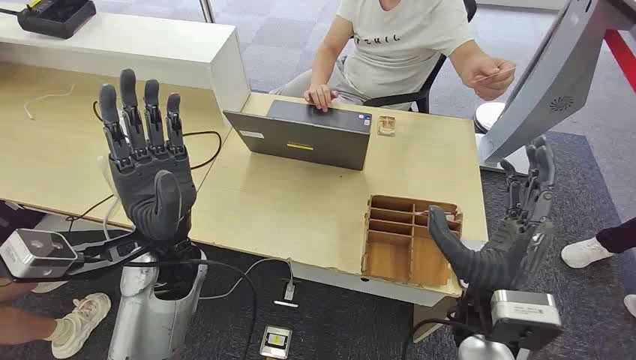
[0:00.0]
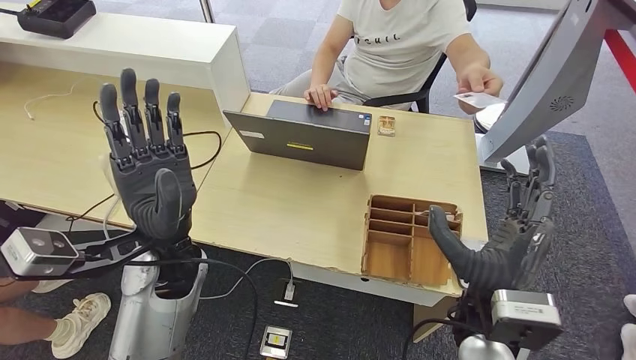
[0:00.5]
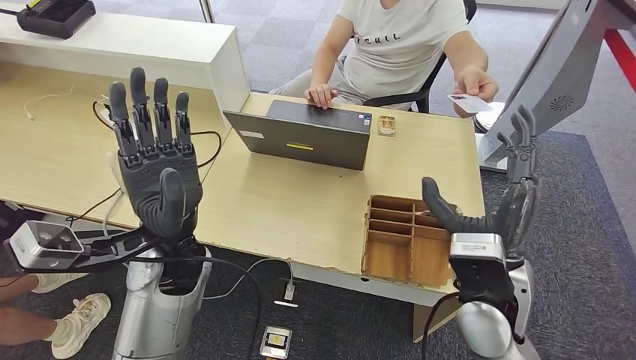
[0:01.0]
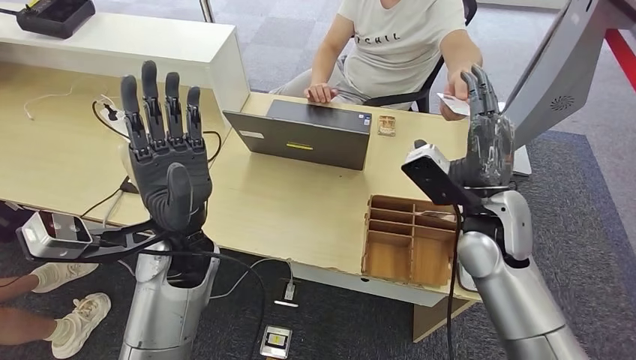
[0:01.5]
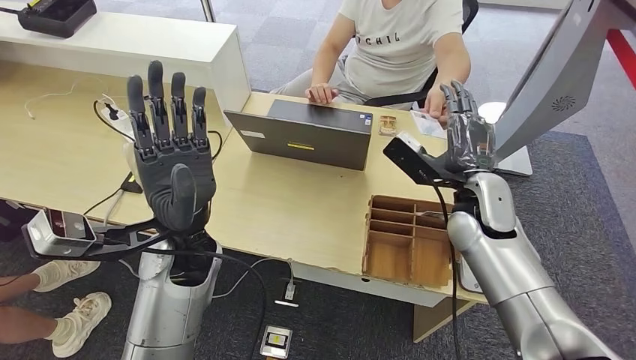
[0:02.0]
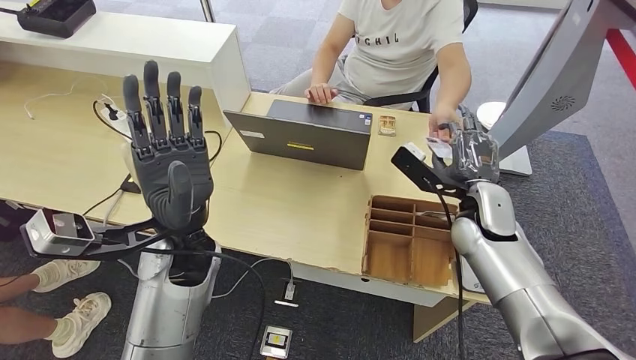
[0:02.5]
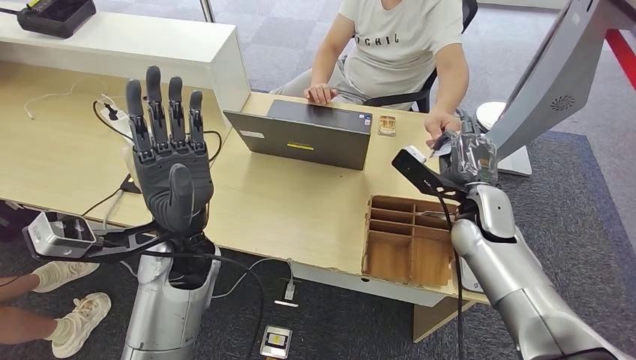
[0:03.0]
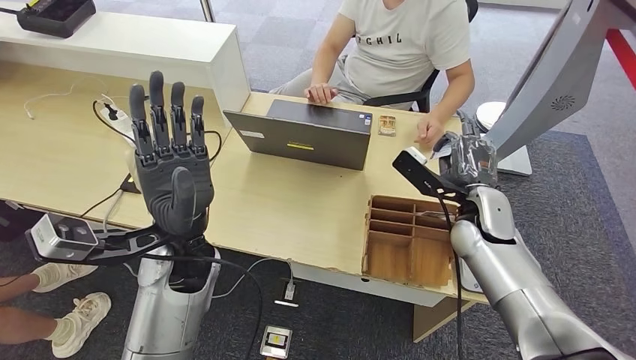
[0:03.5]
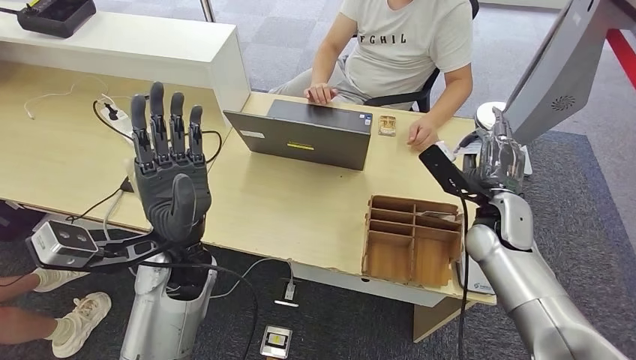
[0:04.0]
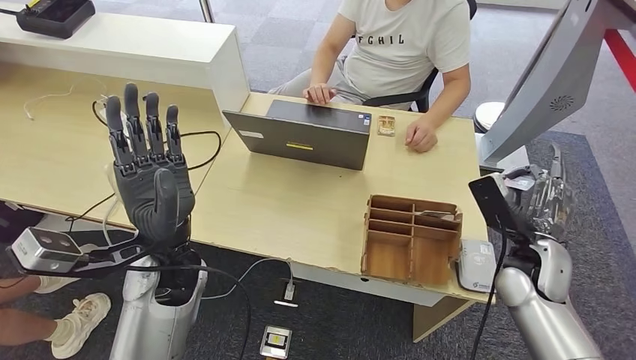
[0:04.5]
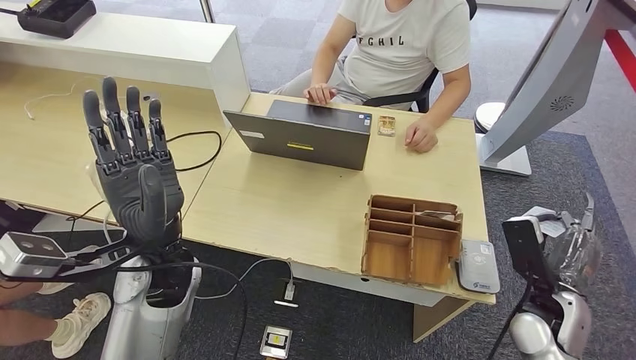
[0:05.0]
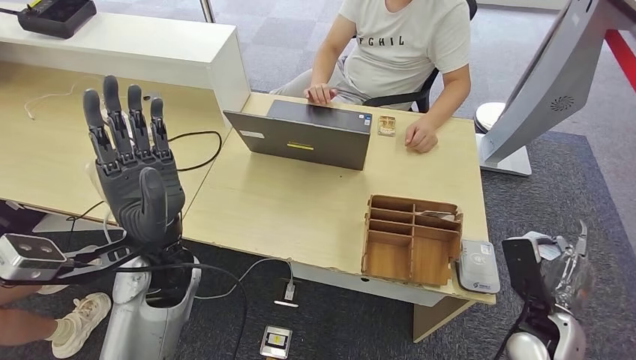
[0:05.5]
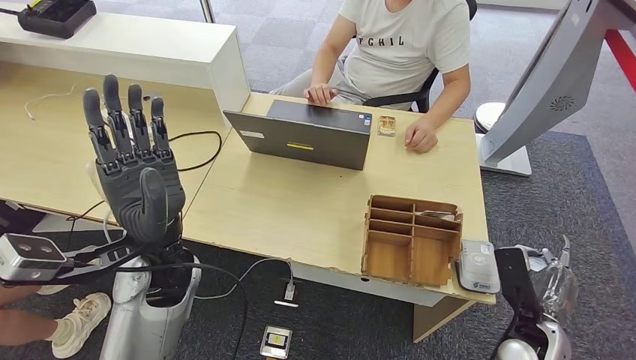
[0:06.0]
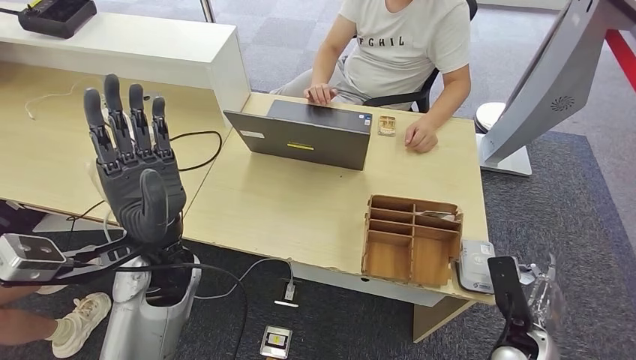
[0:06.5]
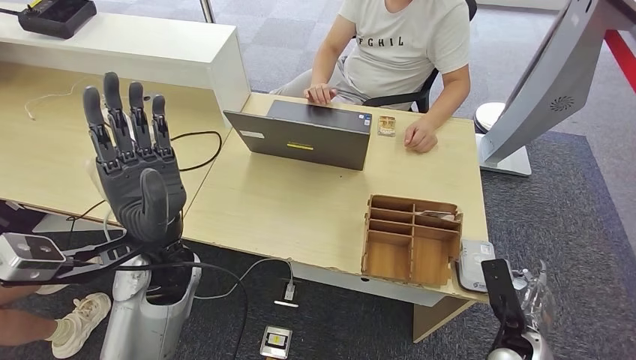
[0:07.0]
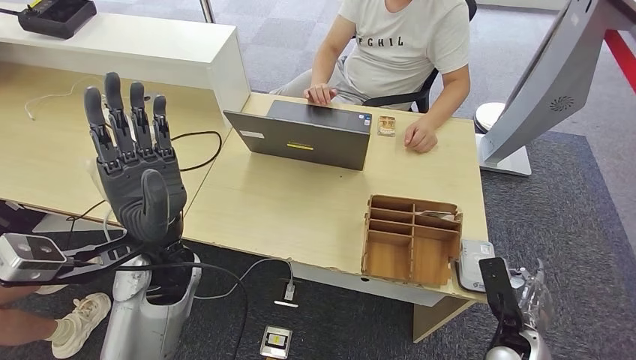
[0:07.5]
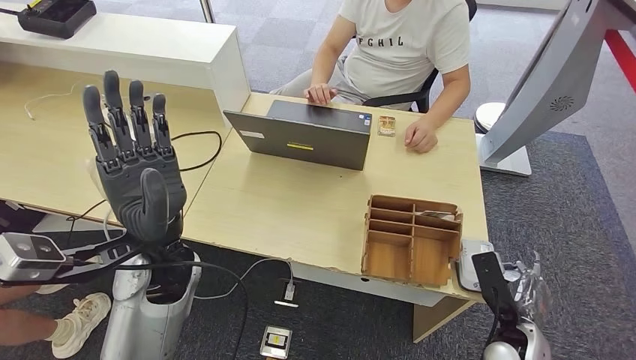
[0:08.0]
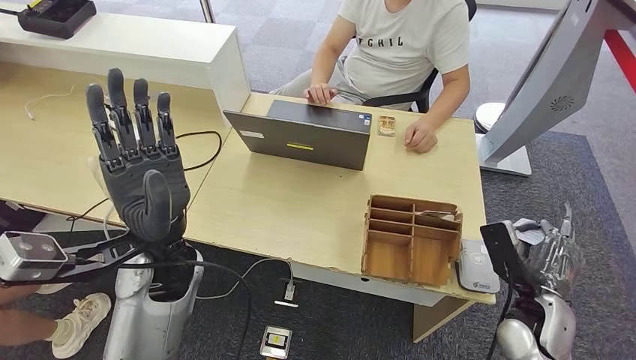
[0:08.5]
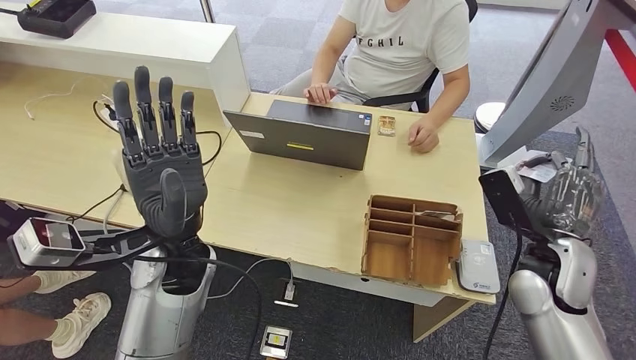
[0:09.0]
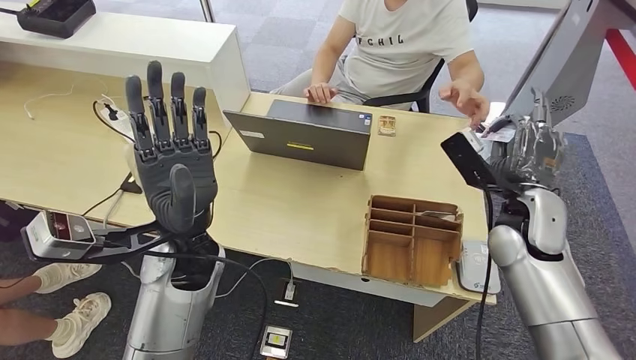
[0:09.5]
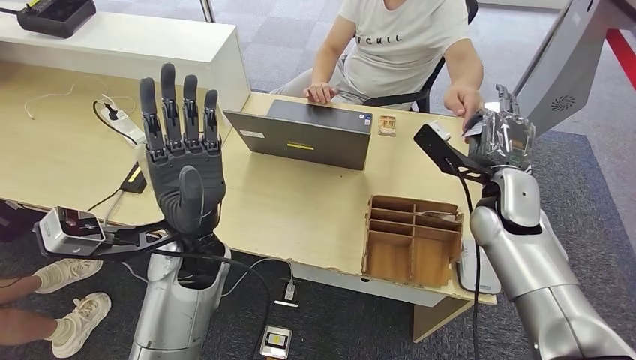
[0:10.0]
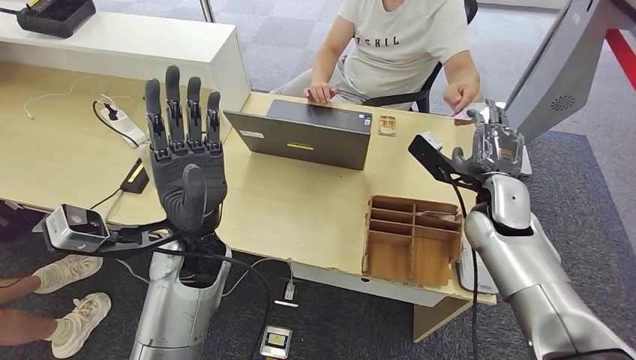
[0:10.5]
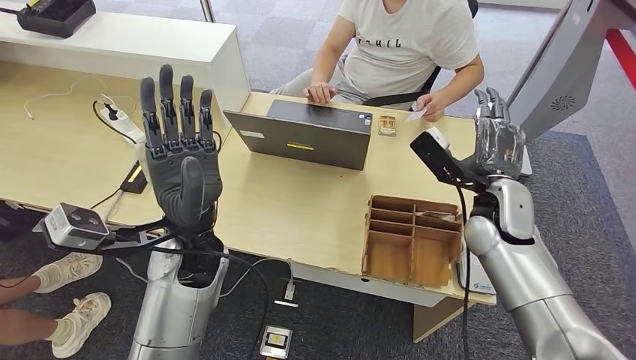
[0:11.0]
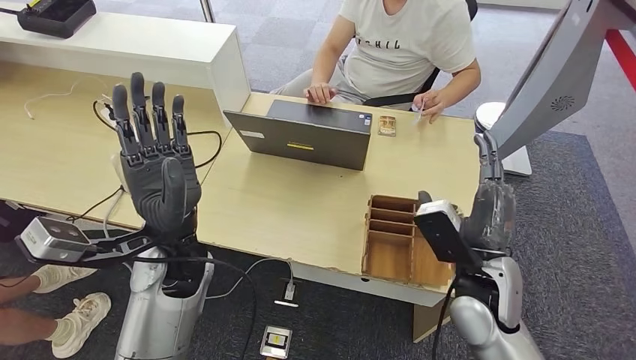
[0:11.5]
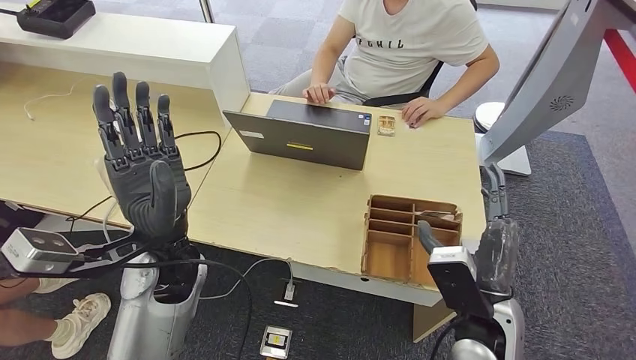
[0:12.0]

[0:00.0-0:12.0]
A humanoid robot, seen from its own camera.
Step, 0:00.0 to 0:03.5: Take the ID card from the person's hand.
Step, 0:04.0 to 0:08.5: Place the ID card on the card reader.
Step, 0:09.0 to 0:11.0: Hand the ID card to the person.
0:02.0 to 0:04.0: The right hand heads to the right, covering roughly 5 cm.
0:04.0 to 0:06.0: The right hand is displaced backward, downward and to the right by approximately 20 cm.
0:06.0 to 0:08.0: The hands stay close to where they were, moving slightly.

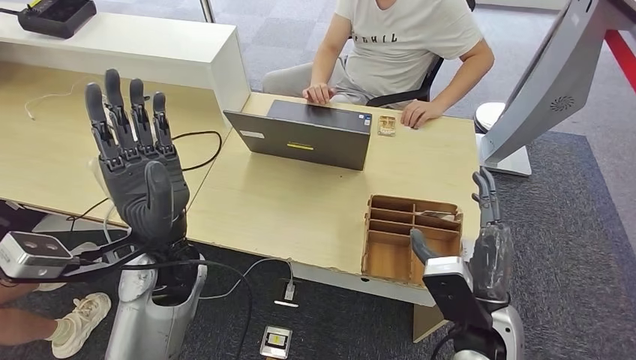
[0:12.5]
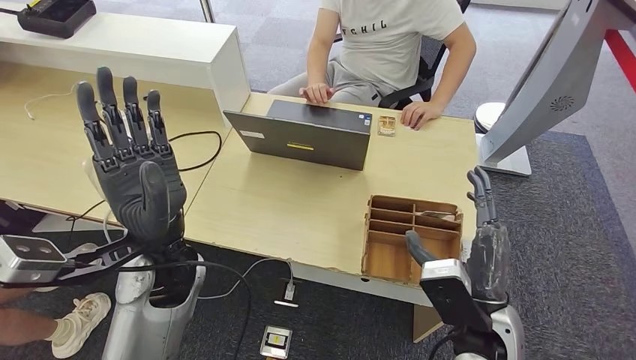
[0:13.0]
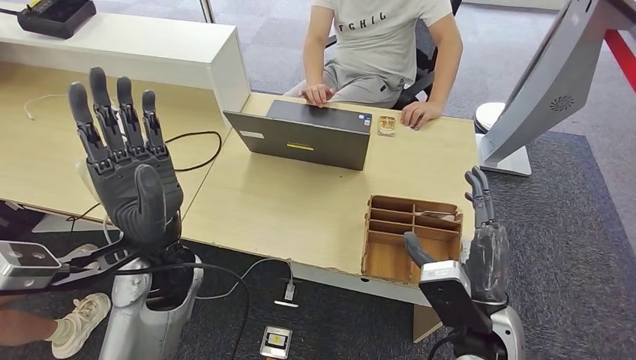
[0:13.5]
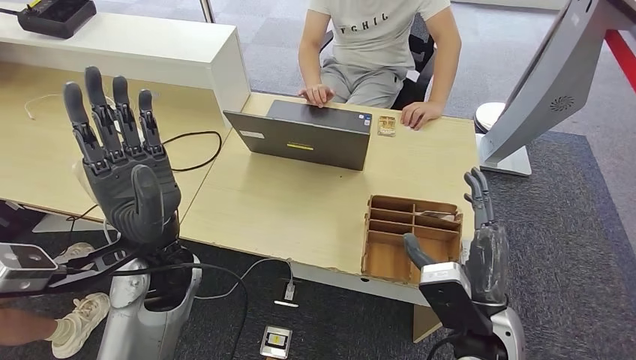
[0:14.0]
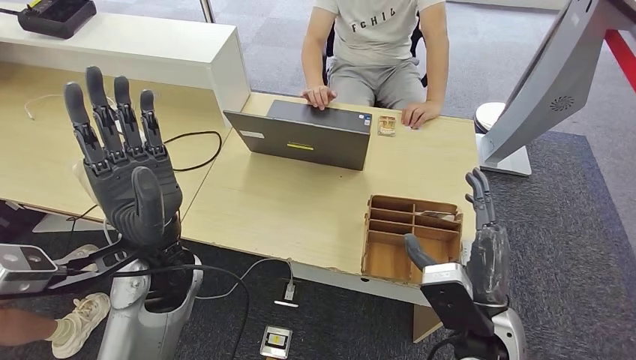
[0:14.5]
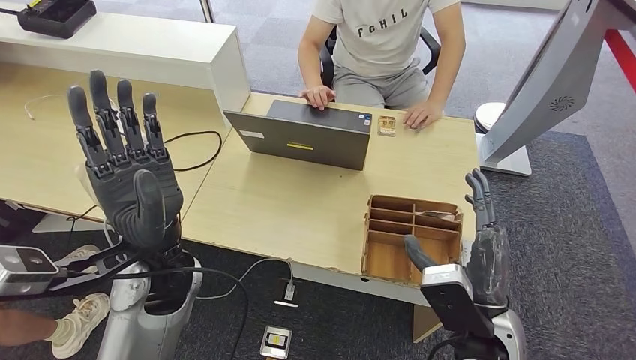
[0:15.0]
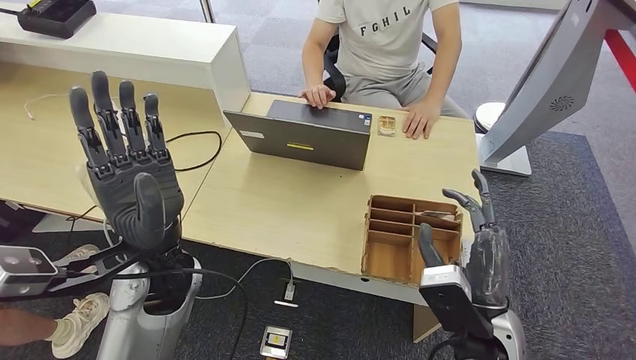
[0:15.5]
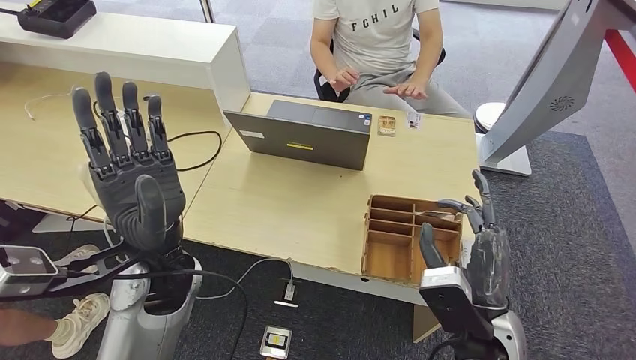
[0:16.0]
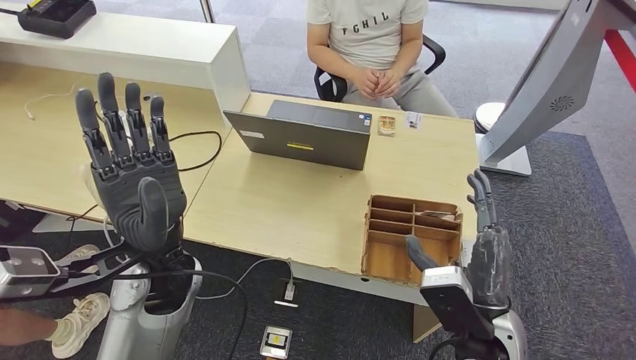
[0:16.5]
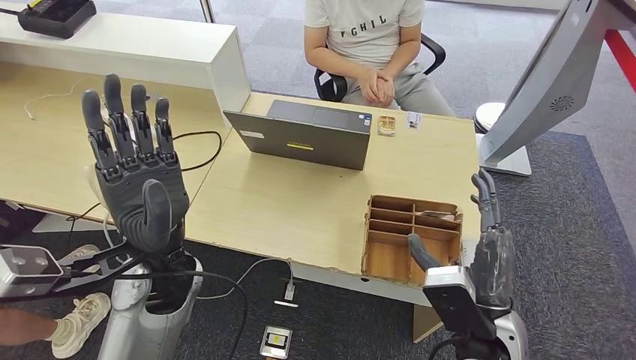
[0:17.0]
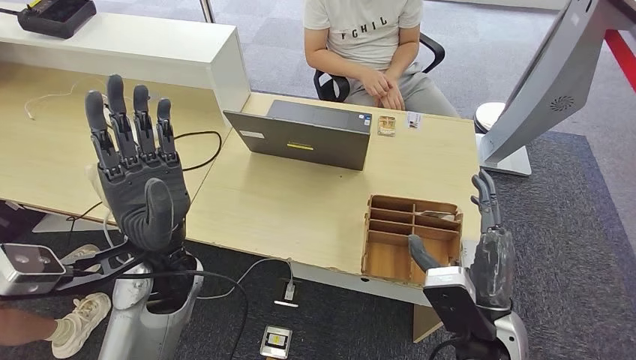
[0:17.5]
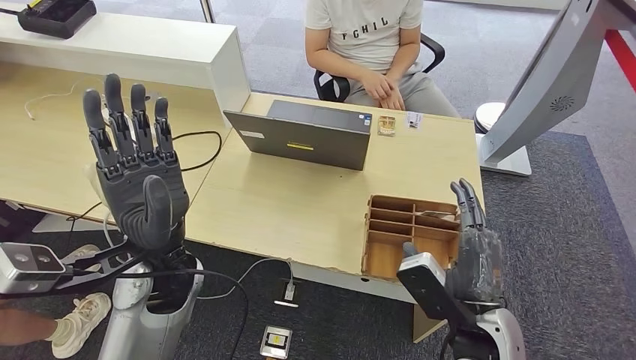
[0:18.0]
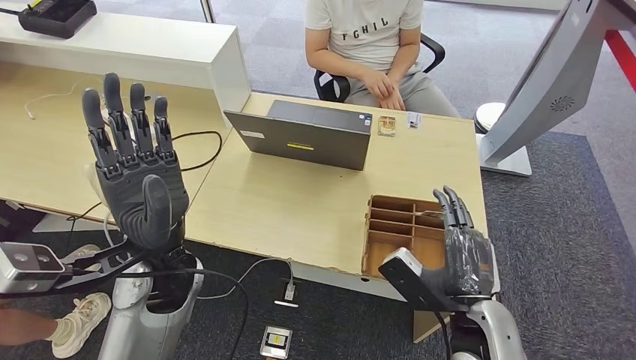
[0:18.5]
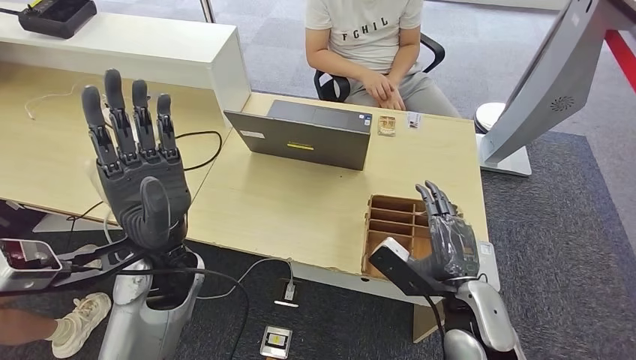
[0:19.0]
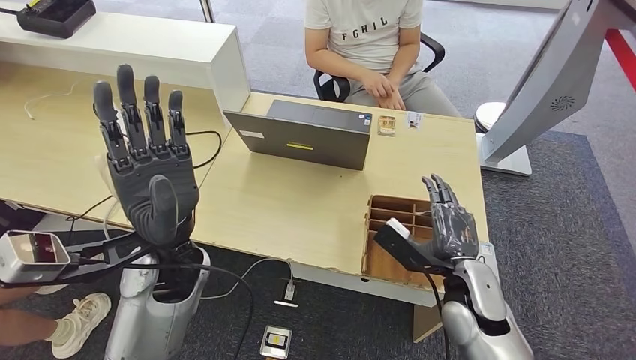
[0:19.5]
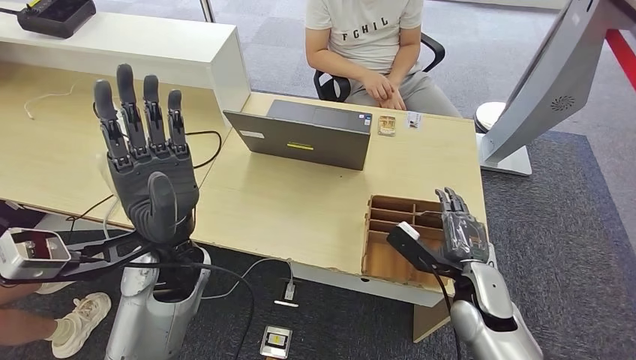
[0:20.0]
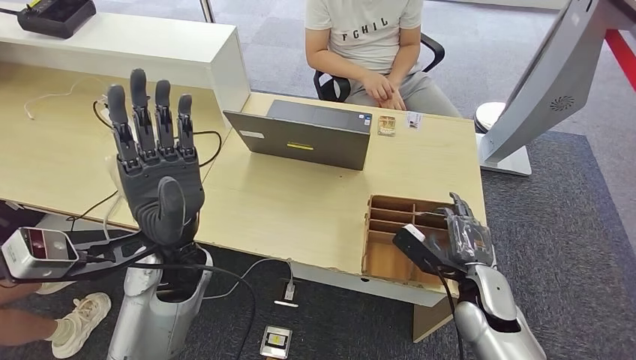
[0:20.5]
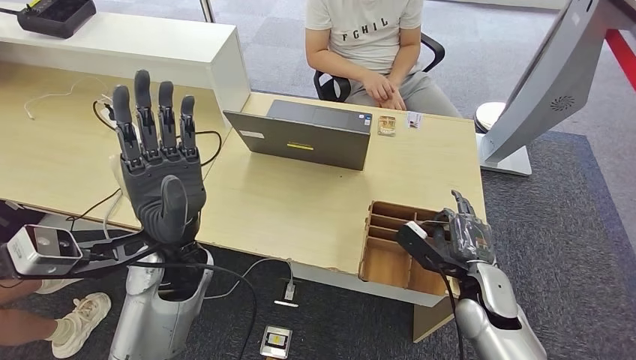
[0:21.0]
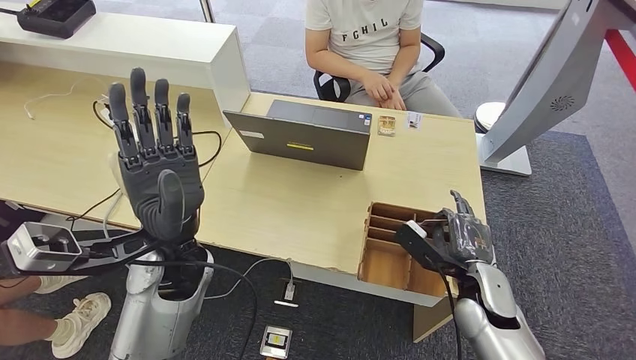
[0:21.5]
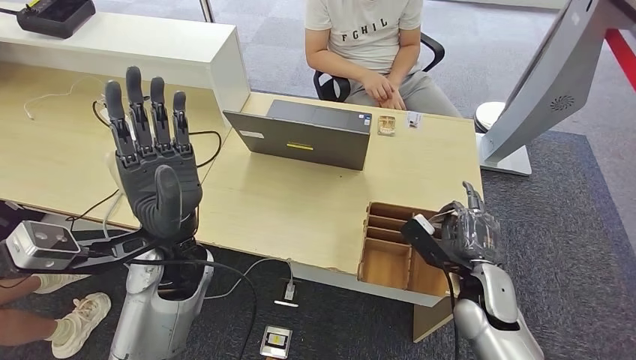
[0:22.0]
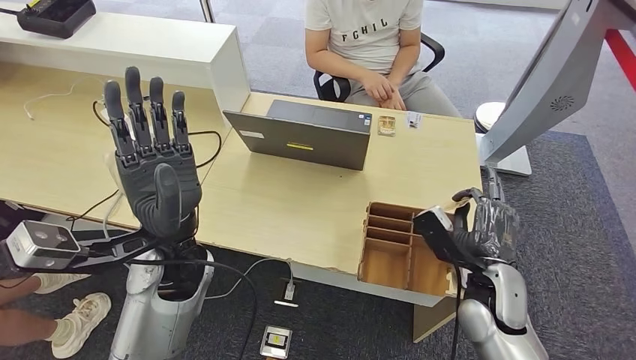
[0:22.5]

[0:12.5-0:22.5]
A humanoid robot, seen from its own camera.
0:12.5 to 0:14.5: Neither hand changes place.
0:14.5 to 0:16.5: Both hands stay put.
0:18.5 to 0:20.5: The right hand travels forward and downward by roughly 10 cm.
